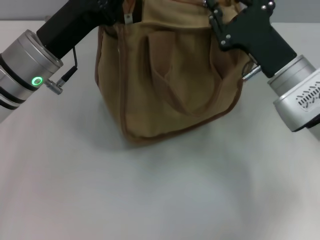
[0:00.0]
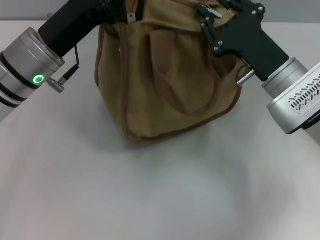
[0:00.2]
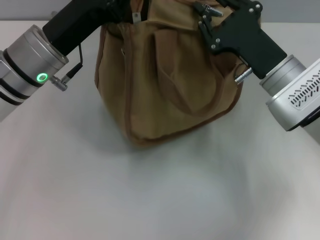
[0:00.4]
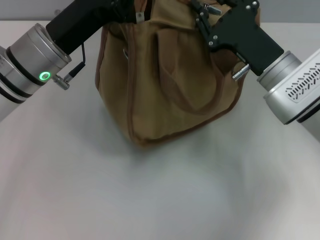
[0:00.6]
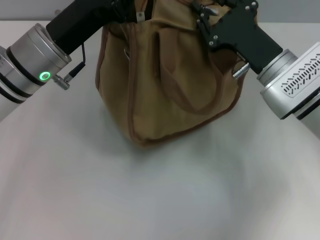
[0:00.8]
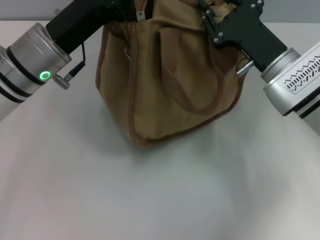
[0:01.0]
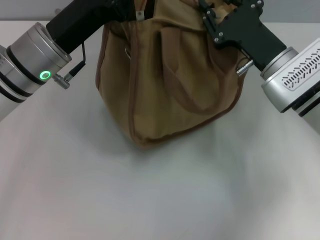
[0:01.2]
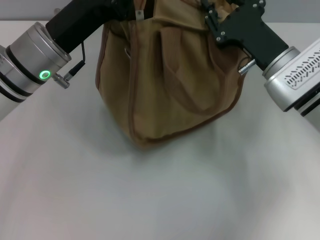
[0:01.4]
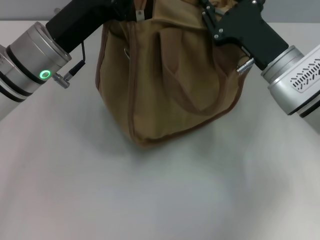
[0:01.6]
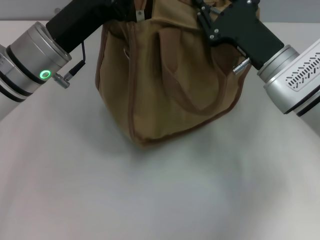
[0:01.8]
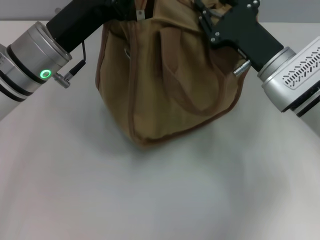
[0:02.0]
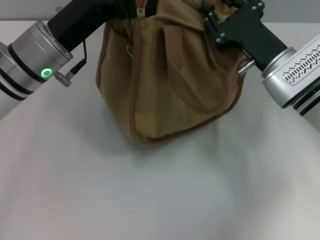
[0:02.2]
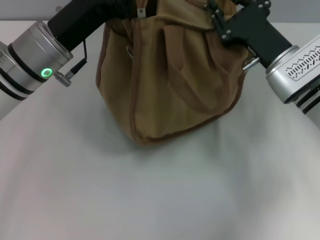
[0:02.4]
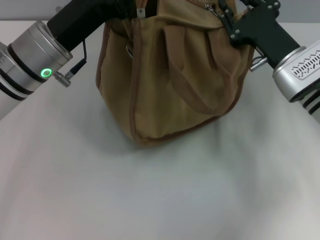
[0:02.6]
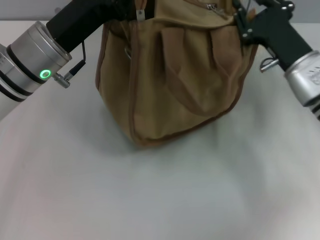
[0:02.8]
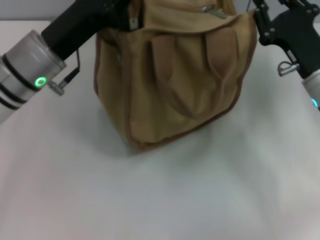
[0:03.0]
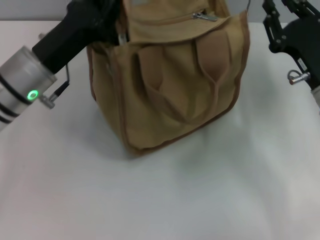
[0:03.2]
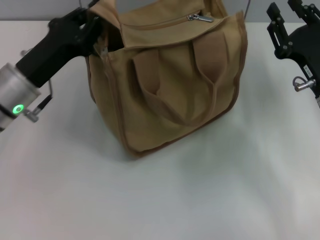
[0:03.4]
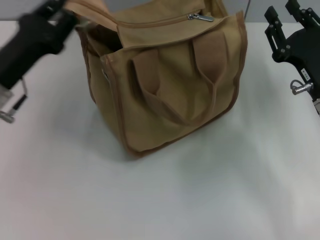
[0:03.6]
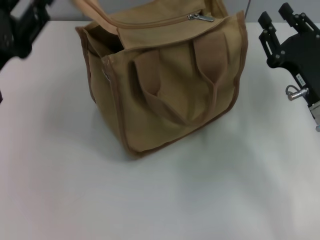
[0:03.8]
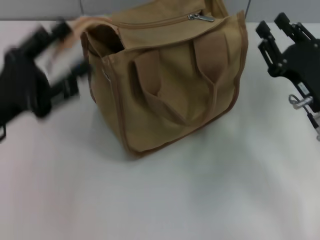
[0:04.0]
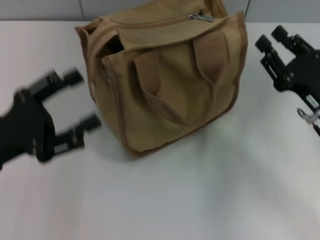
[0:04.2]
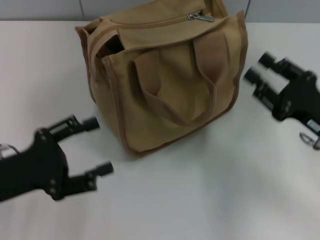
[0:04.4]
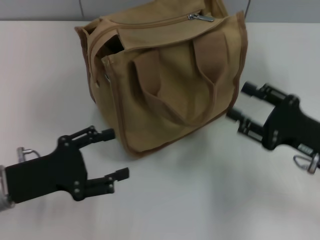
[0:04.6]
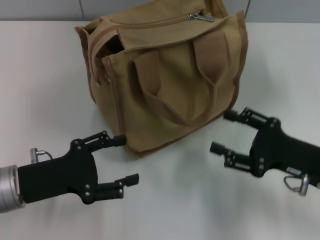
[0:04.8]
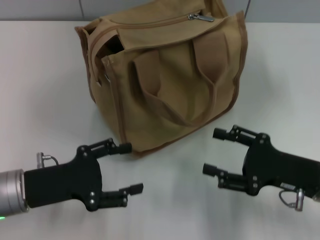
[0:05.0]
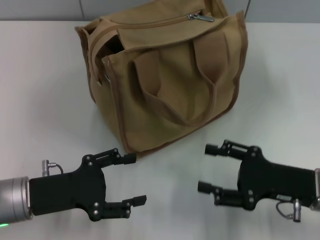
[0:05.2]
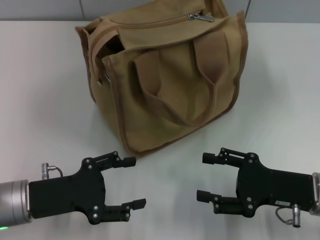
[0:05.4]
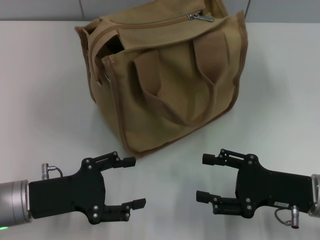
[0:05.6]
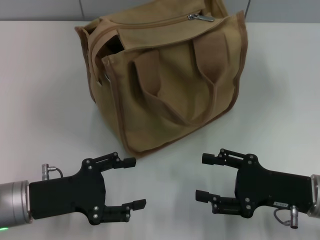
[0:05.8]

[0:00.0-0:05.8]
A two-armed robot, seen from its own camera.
Step, 0:00.0 to 0:02.6: Pull up the zipper with your right hand.
Step, 0:02.8 to 0:04.0: Grab the zipper with your left hand.
0:00.0 to 0:02.8: There are only small adjustments of the grippers.
0:02.8 to 0:04.4: The right gripper is displaced backward and to the right by about 10 cm. Meanwhile the left gripper is displaced backward, to the left and downward by about 20 cm, and opens up.
0:04.4 to 0:05.8: The left gripper shifts by about 5 cm. Meanwhile the right gripper shifts by about 5 cm, and opens up.

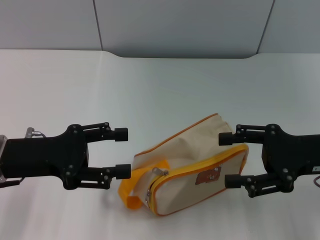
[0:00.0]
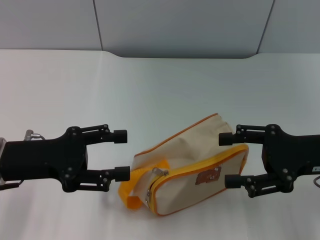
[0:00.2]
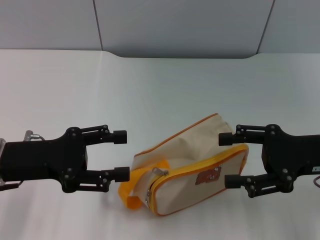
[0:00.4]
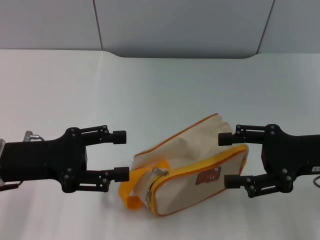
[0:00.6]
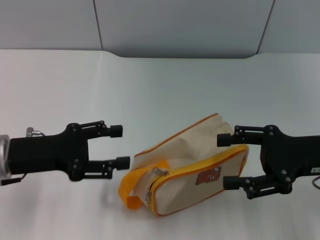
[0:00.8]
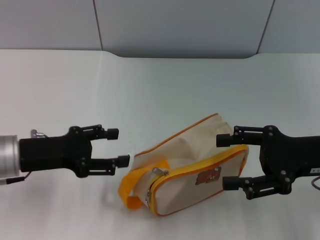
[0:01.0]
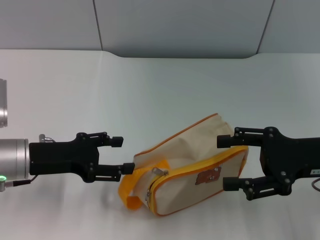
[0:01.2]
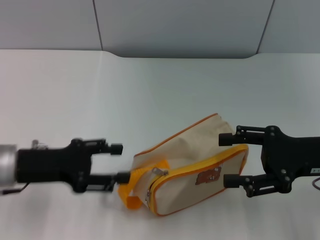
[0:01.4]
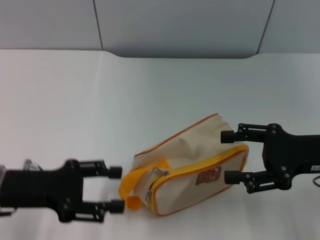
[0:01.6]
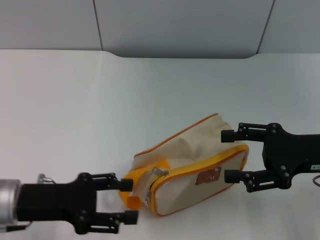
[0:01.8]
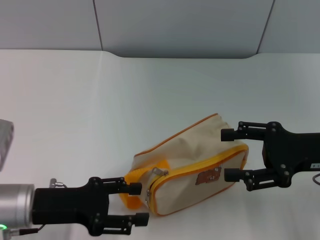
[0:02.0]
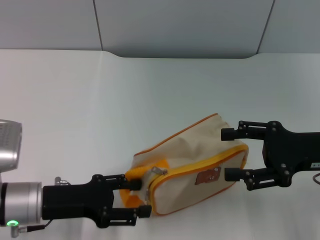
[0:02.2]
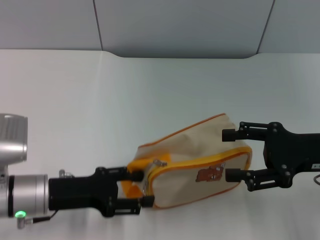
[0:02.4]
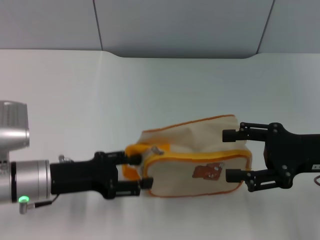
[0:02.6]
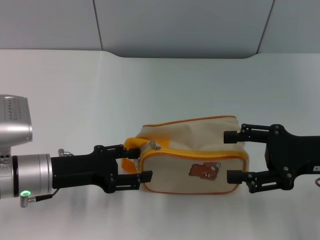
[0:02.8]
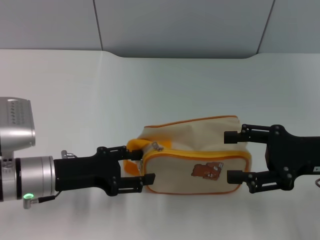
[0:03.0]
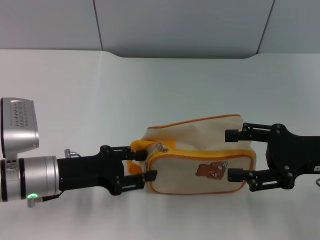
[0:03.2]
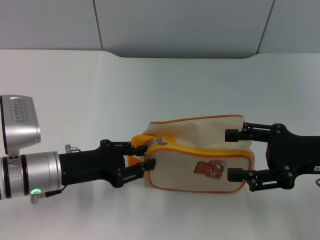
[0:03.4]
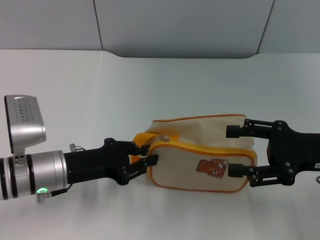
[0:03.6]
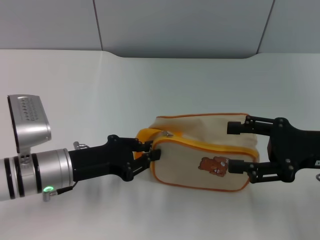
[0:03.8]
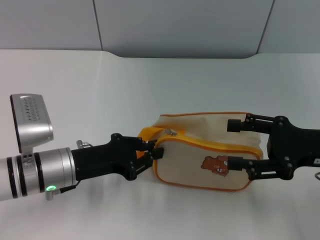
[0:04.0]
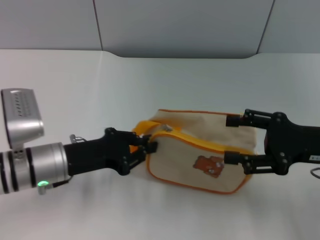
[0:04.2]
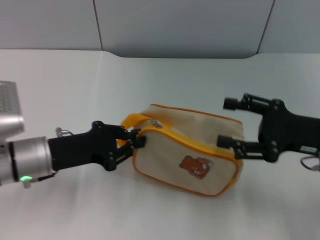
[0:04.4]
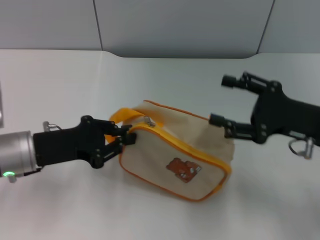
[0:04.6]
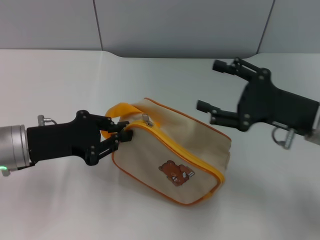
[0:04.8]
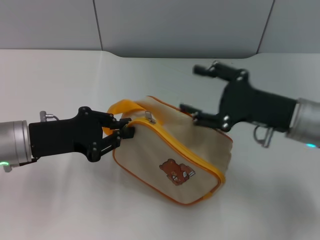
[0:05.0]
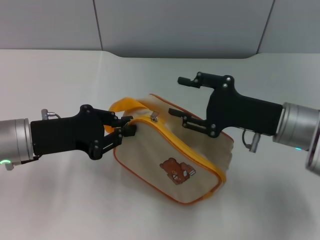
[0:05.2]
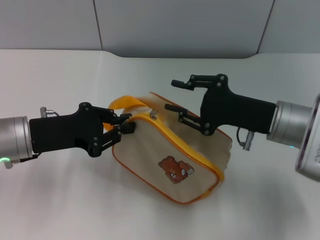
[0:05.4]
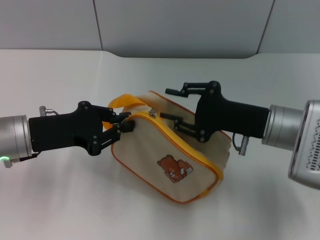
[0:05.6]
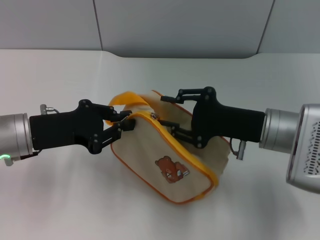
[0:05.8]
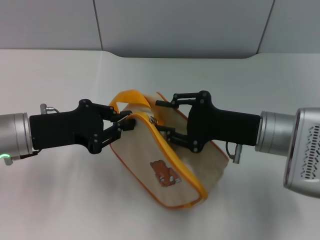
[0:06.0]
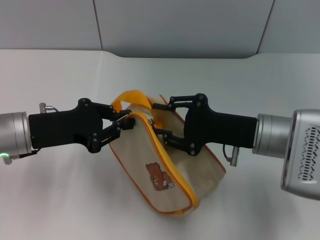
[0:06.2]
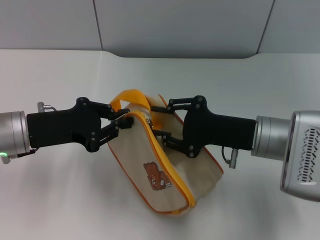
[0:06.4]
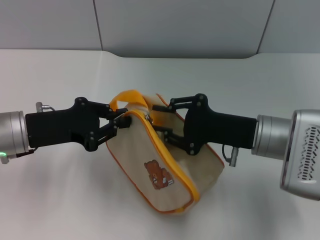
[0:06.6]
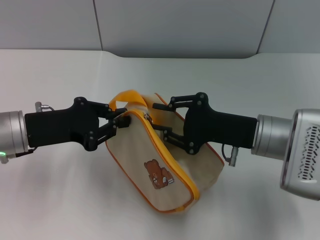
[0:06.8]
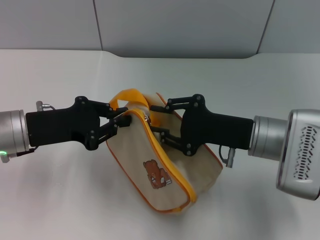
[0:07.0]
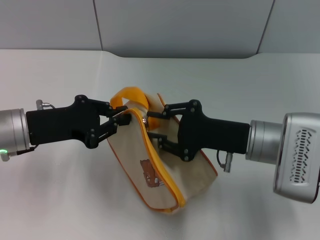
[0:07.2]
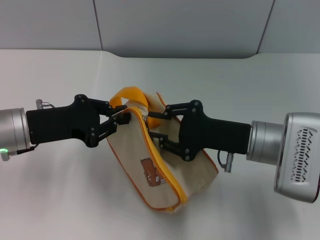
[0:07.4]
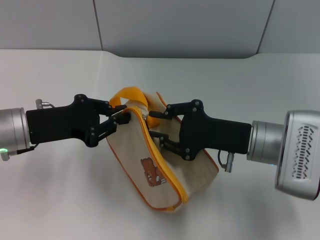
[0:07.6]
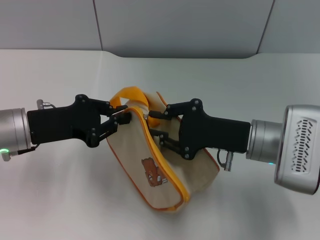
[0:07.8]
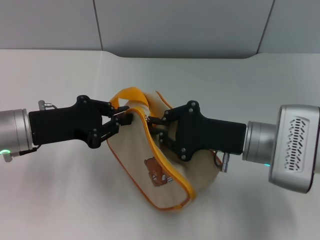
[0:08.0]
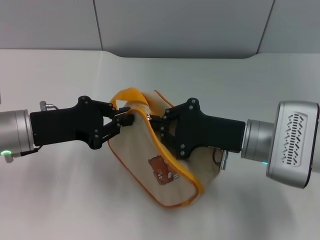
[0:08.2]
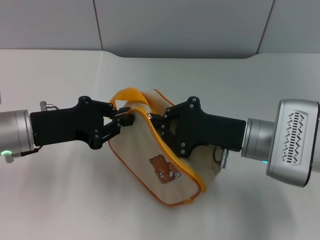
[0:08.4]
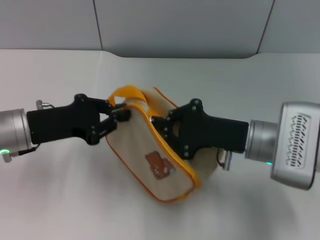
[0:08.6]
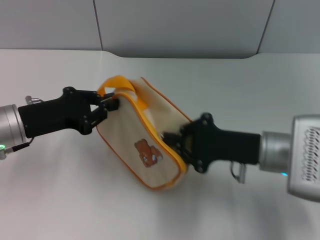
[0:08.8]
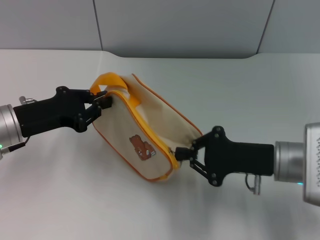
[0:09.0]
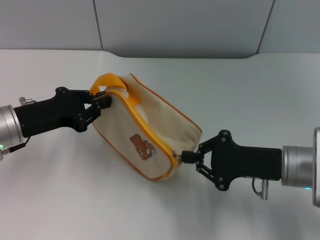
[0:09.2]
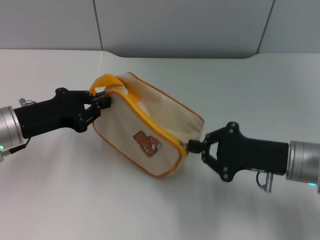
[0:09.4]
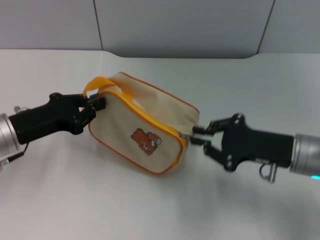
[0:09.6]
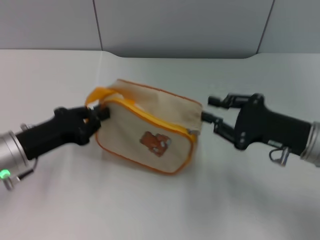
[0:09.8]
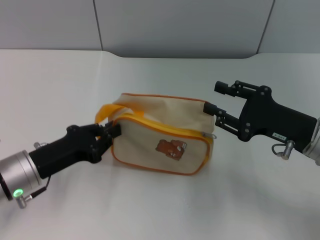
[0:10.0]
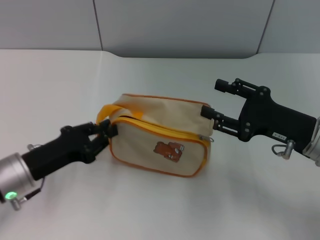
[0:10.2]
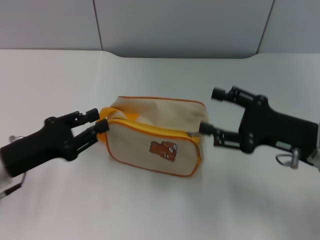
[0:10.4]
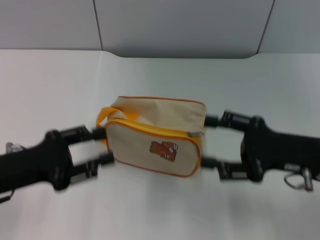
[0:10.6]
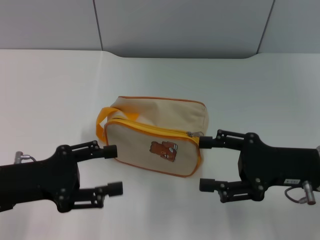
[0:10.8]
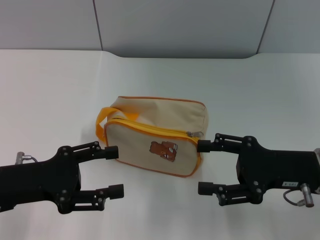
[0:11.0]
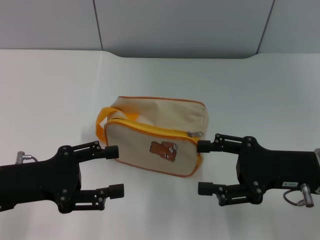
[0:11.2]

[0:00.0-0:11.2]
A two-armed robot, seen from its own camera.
Step, 0:00.0 to 0:05.2: Pick up the bag with left gripper.
Step, 0:05.4 to 0:09.6: Unzip the zipper of bag with right gripper.
Step, 0:10.0 to 0:10.4: Place the bag on the table with left gripper.
0:00.0 to 0:01.6: The grippers make only small movements.
0:01.6 to 0:03.2: The left gripper travels to the right by roughly 5 cm.
0:03.2 to 0:04.8: The right gripper shifts by approximately 5 cm, while the left gripper shifts by some 5 cm, and closes its fingers.
0:04.8 to 0:06.4: The right gripper goes some 5 cm to the left, and closes up.
0:06.4 to 0:08.0: The grippers move only a little.
0:08.0 to 0:09.6: The right gripper heads to the right, covering roughly 5 cm.
0:09.6 to 0:11.2: The right gripper opens its fingers; the left gripper moves backward, roughly 5 cm, and opens its fingers.

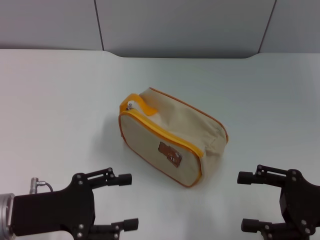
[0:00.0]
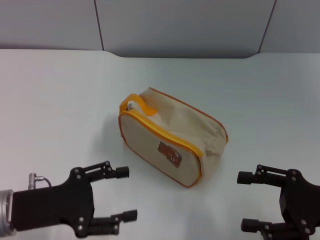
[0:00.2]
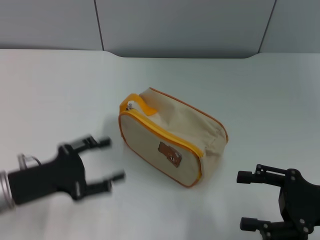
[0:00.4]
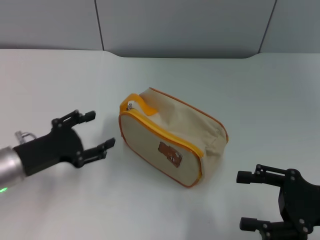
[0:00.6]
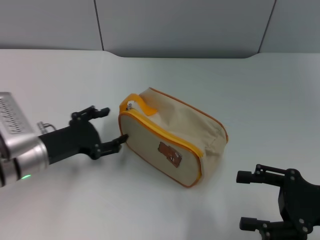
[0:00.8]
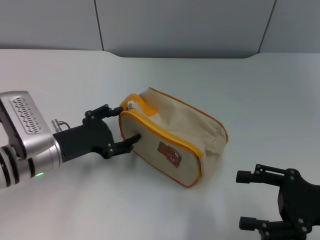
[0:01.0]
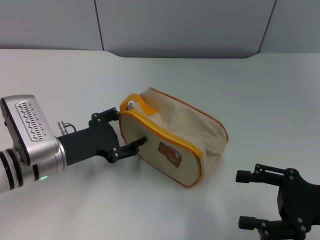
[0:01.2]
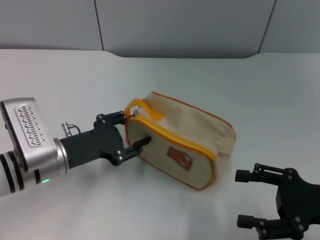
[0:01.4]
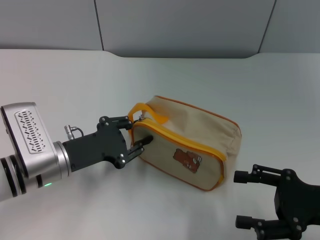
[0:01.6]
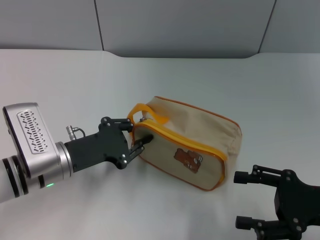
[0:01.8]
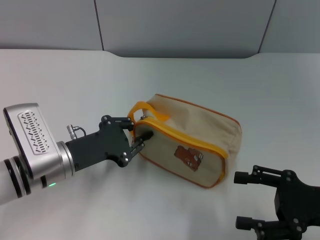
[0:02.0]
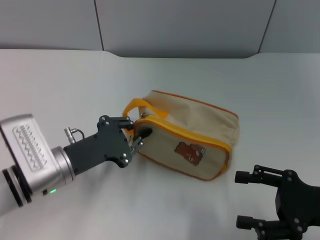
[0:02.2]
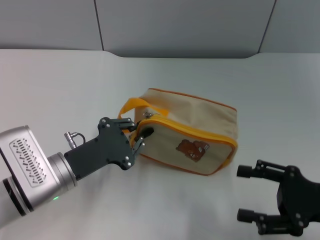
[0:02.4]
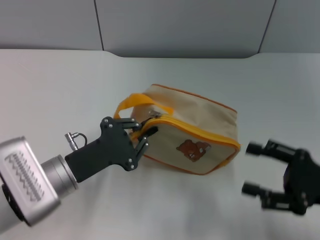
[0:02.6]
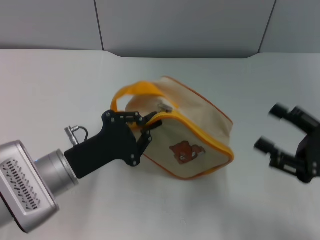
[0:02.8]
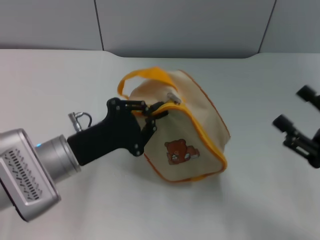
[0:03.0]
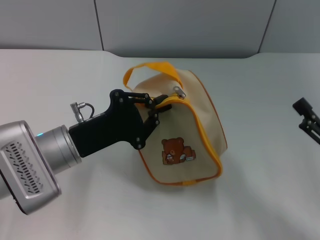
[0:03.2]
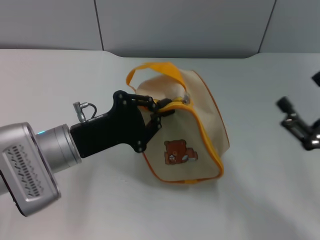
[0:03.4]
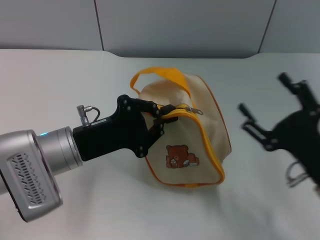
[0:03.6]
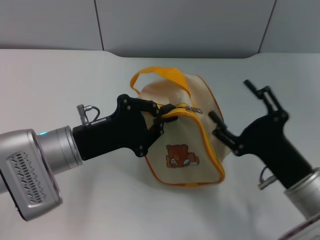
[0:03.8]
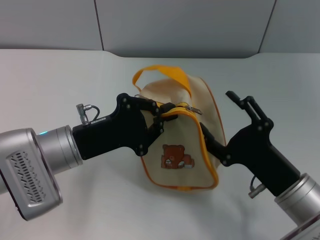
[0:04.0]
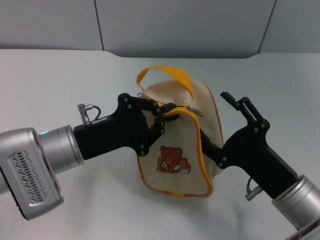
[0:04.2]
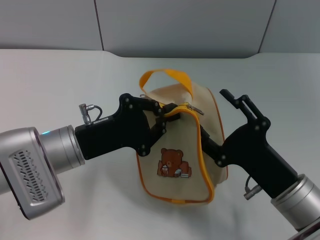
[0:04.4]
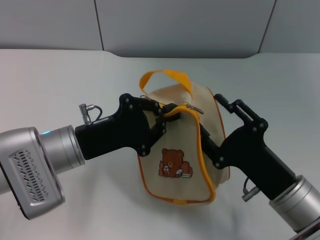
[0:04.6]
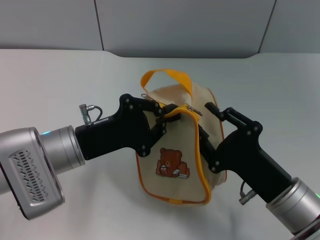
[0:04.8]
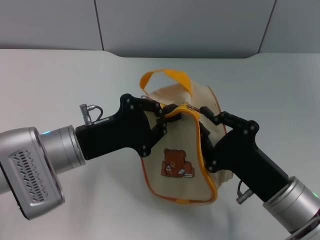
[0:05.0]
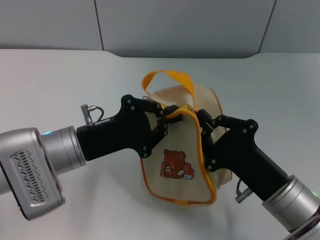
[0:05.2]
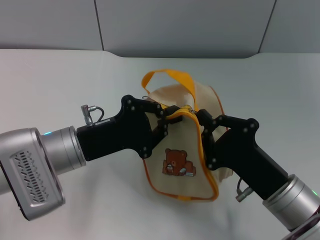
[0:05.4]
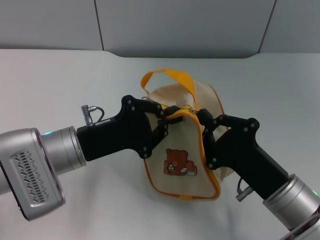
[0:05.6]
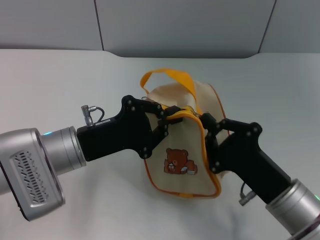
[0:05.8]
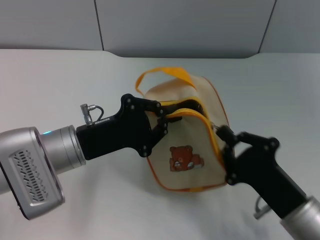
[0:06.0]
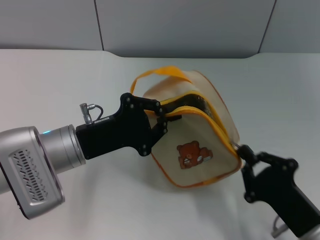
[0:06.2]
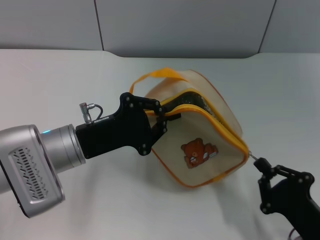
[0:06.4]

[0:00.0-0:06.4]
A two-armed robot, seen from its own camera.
Step, 0:00.0 to 0:02.6: Pick up the bag with left gripper.
0:00.0 to 0:01.6: The left gripper heads forward, covering roughly 10 cm.
0:01.6 to 0:03.2: The left gripper closes.
0:03.2 to 0:04.8: The right gripper is displaced to the left by roughly 15 cm, and closes its fingers.
0:04.8 to 0:06.4: The right gripper heads backward and to the right, covering some 10 cm, and closes its fingers.
